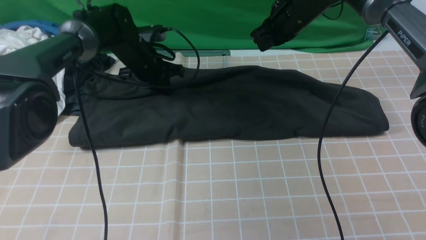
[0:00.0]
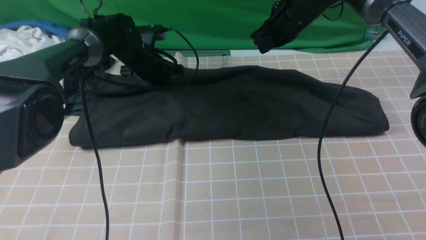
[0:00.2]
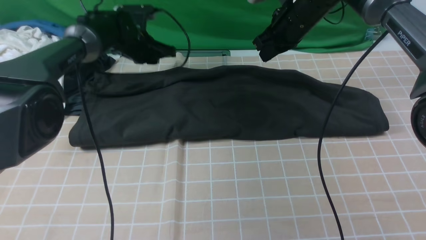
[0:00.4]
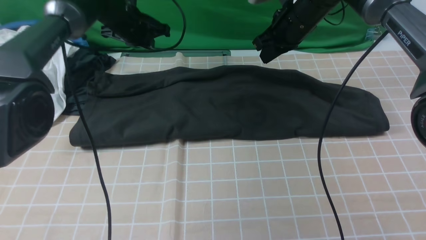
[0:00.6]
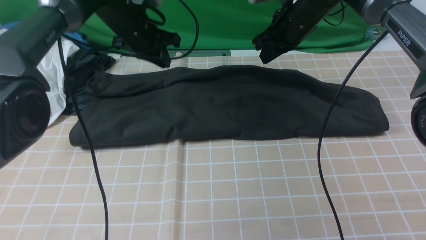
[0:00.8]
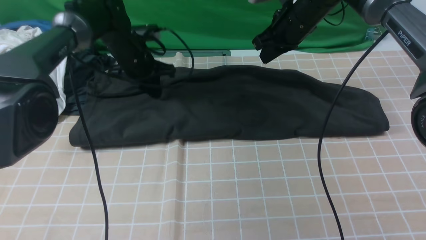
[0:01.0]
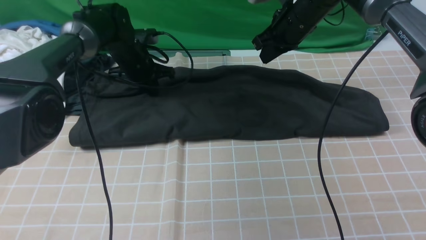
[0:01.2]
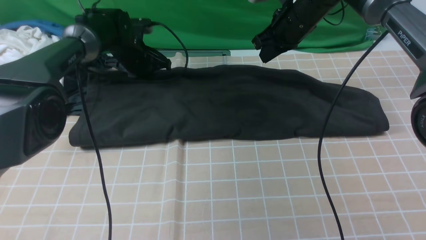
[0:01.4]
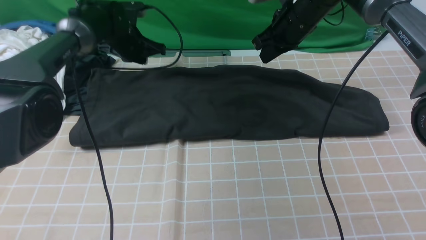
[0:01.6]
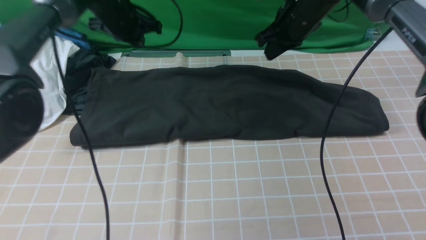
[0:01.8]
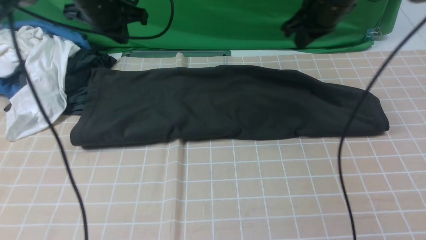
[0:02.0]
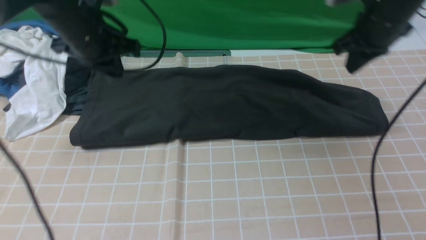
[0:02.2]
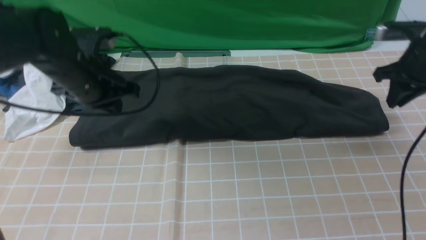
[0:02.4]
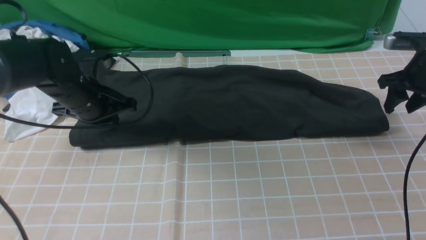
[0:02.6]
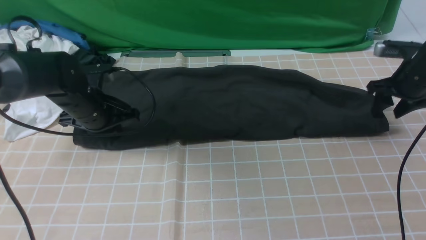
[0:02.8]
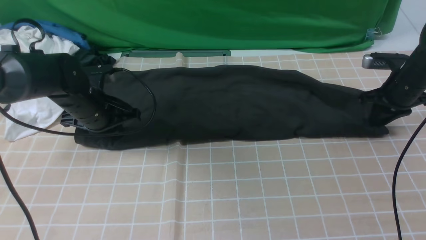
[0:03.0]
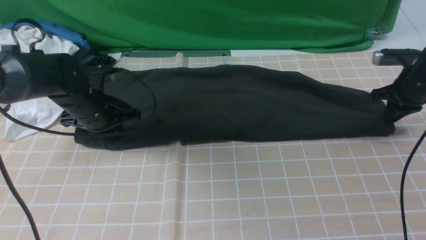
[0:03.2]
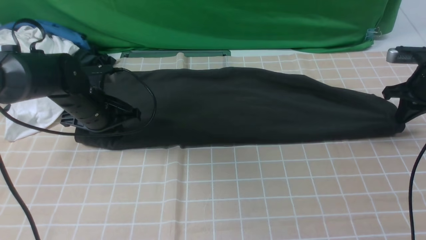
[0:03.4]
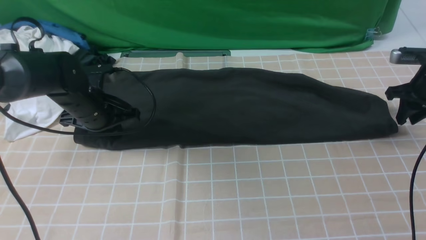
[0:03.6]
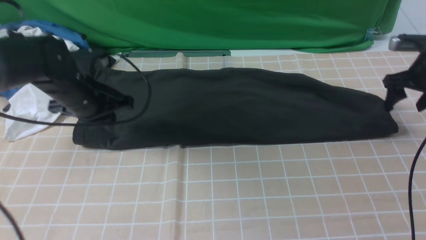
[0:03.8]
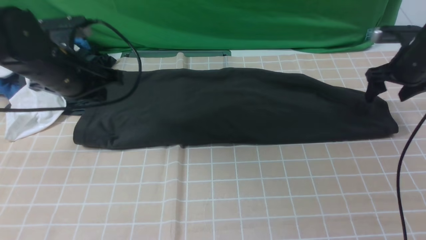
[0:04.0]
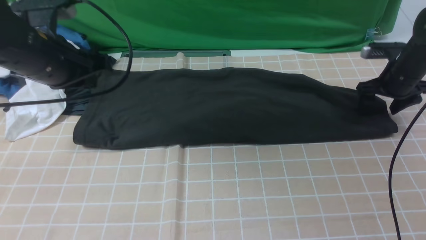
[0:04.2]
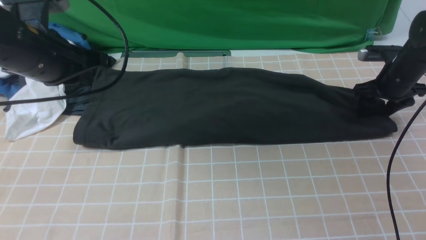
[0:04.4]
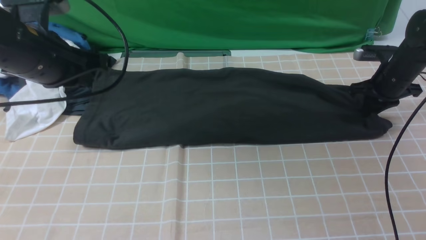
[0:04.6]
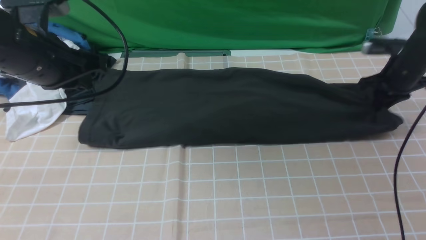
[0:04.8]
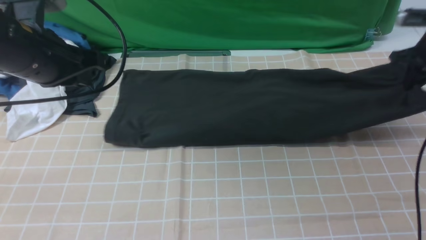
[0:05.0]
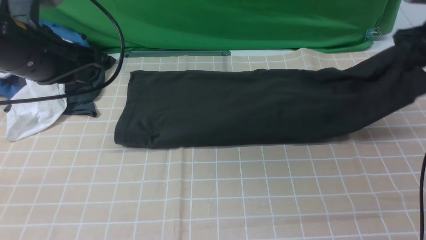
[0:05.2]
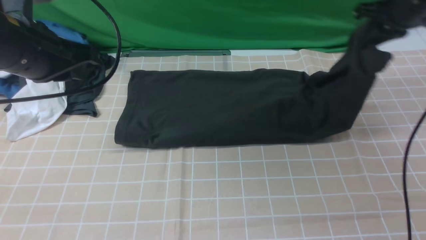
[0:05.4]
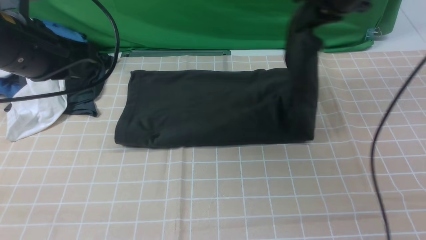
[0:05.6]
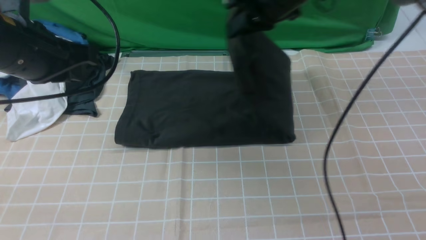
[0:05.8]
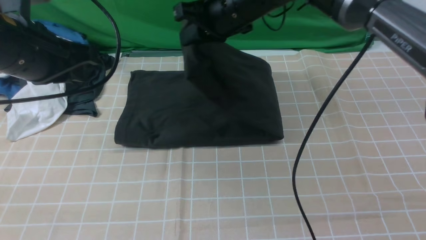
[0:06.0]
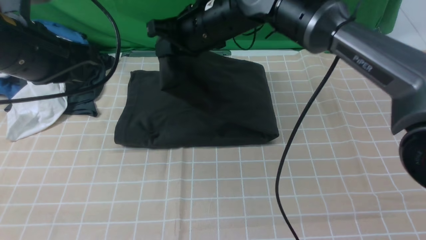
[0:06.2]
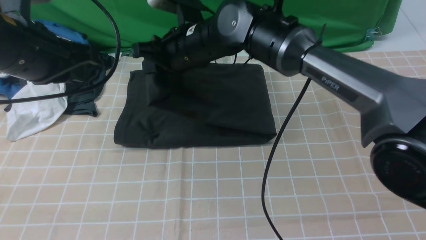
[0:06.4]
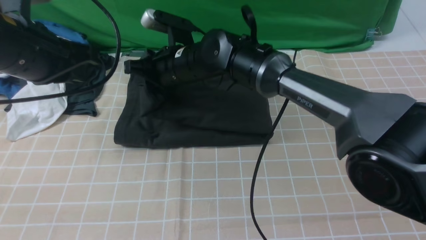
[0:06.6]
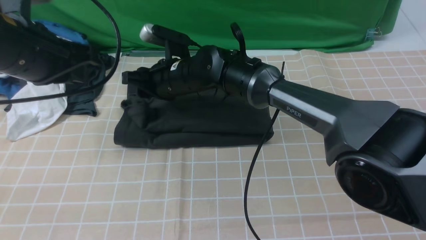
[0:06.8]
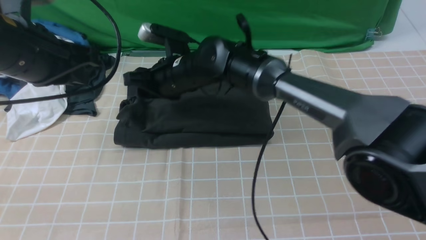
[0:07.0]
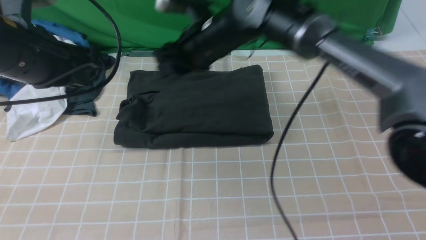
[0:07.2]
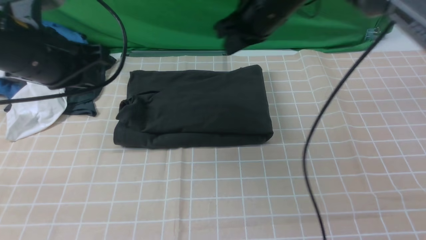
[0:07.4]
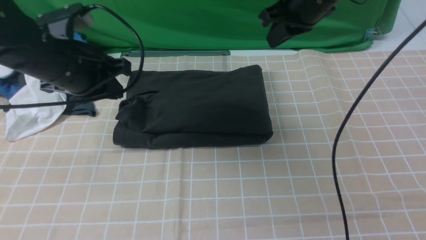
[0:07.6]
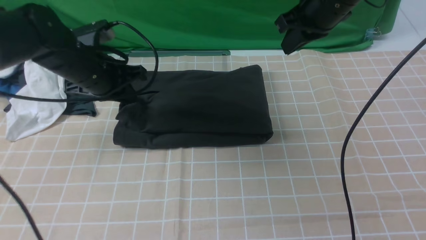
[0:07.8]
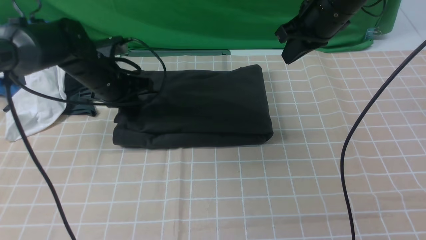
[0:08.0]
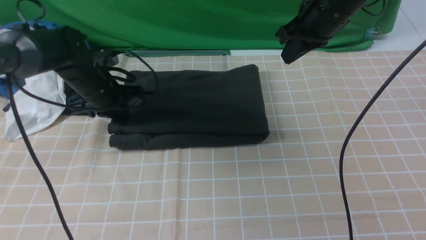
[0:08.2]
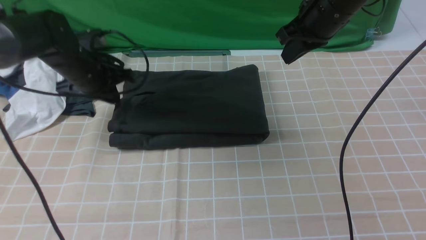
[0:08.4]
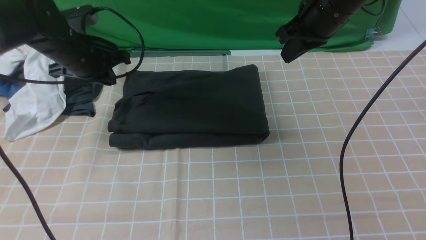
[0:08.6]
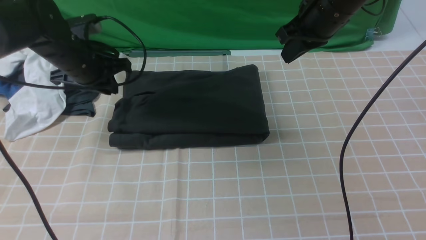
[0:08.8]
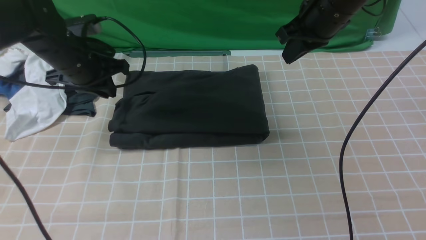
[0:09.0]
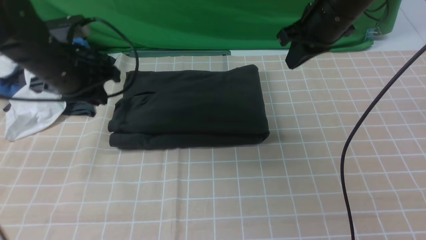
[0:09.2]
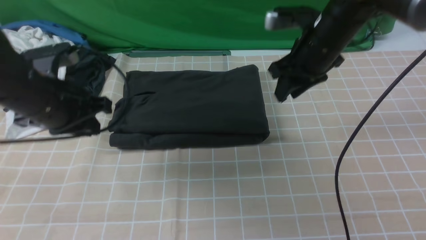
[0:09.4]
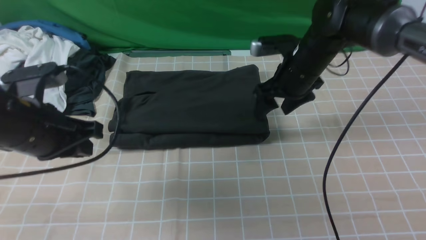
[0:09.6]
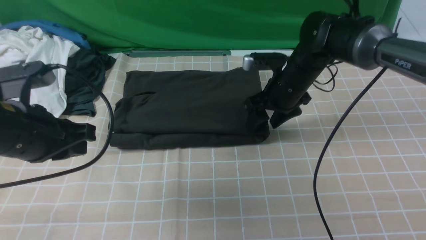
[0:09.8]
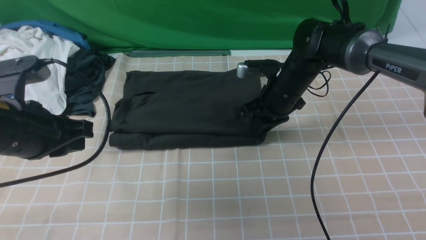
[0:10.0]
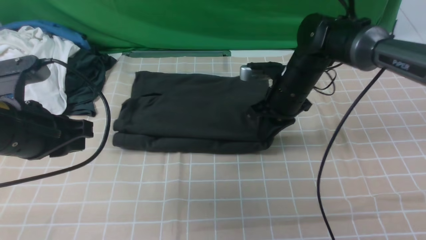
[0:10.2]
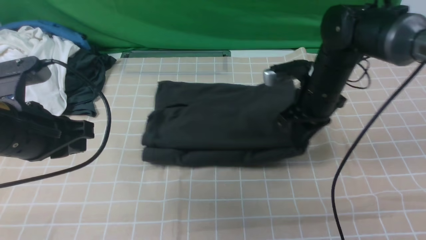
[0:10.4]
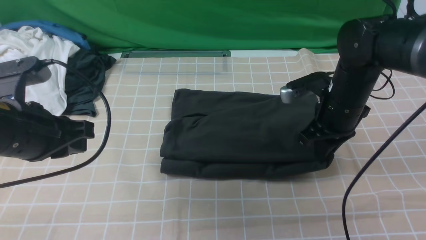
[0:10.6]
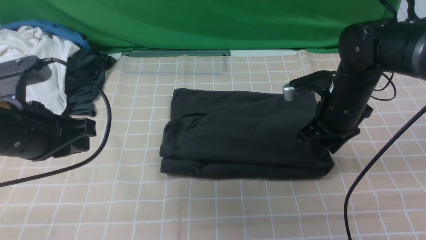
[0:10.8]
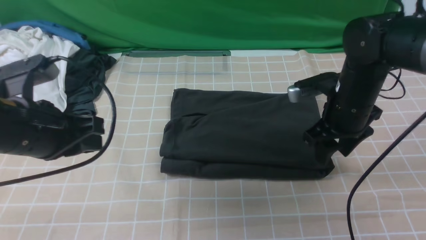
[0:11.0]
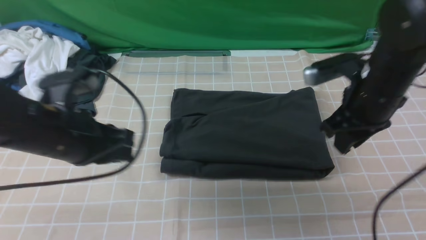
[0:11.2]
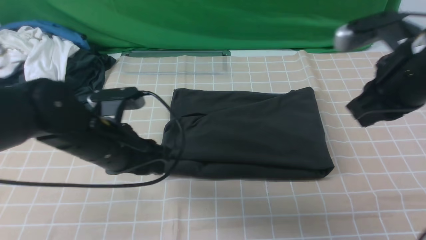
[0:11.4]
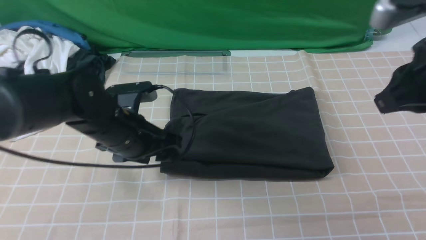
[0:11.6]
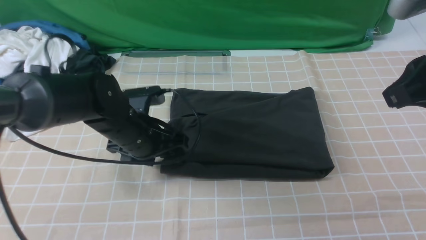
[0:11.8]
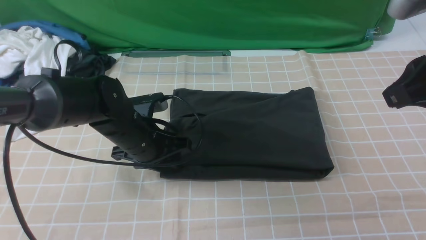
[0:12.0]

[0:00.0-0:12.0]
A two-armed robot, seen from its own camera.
Step, 0:00.0 to 0:04.6: use the right arm to clamp the right edge of the fabric.
Step, 0:04.8 to 0:07.0: use the right arm to drag the right edge of the fabric to the left and folds it over the left edge.
0:00.0 to 0:01.6: The left gripper swings up and down, roughly 5 cm each way, with 2 reversals.
0:01.6 to 0:03.0: The right gripper shifts about 25 cm to the right and downward. Meanwhile the left gripper goes some 15 cm backward.
0:03.0 to 0:04.4: The left gripper travels upward and backward by approximately 15 cm, while the right gripper opens.
0:04.4 to 0:06.0: The right gripper travels to the left and upward by roughly 35 cm, and closes its fingers.
0:06.0 to 0:07.6: The left gripper is displaced downward and forward by roughly 10 cm, while the right gripper travels to the right by roughly 10 cm, and opens, then closes once more.
0:07.6 to 0:09.0: The left gripper reaches about 10 cm downward, then returns.
0:09.0 to 0:10.4: The right gripper moves downward, some 10 cm, and opens, then closes again, while the left gripper travels backward by approximately 15 cm.
0:10.4 to 0:12.0: The right gripper travels upward and backward by approximately 25 cm, and opens, then closes once more, while the left gripper goes roughly 20 cm downward, to the right and forward, and opens up.

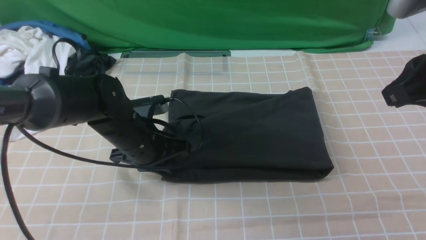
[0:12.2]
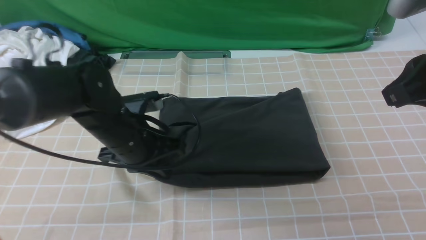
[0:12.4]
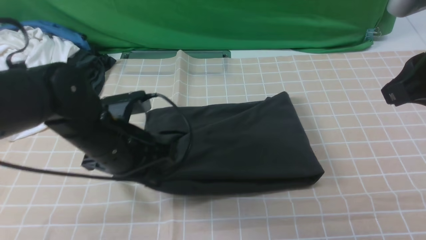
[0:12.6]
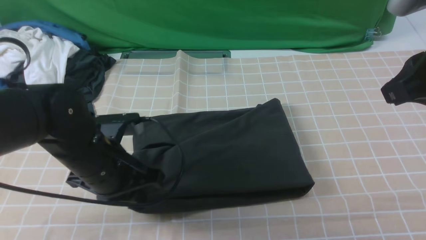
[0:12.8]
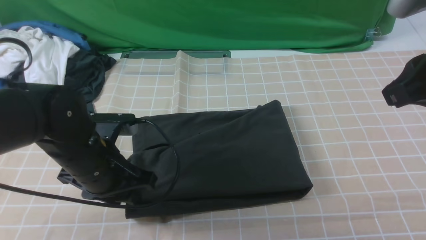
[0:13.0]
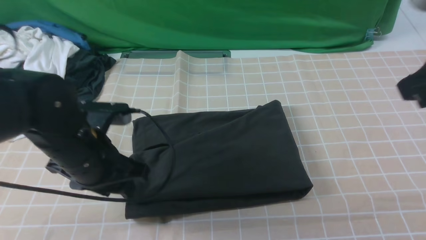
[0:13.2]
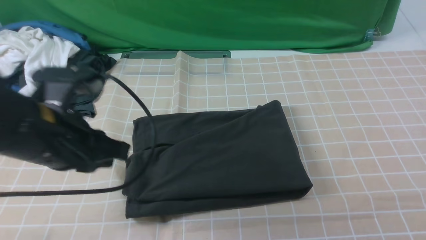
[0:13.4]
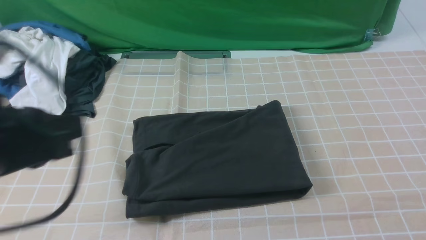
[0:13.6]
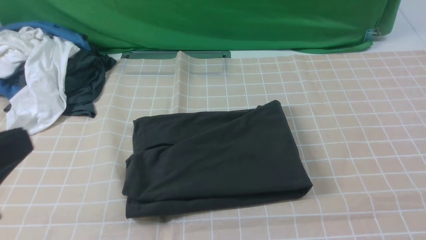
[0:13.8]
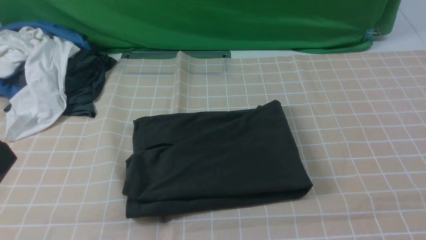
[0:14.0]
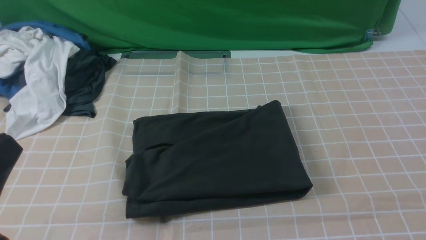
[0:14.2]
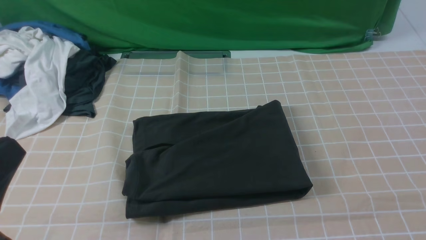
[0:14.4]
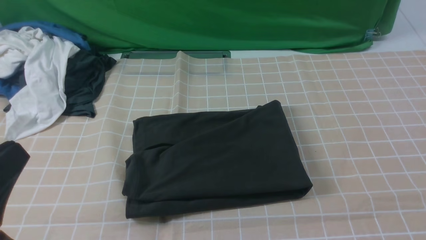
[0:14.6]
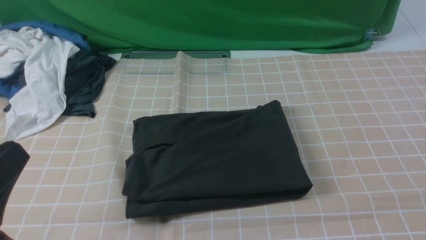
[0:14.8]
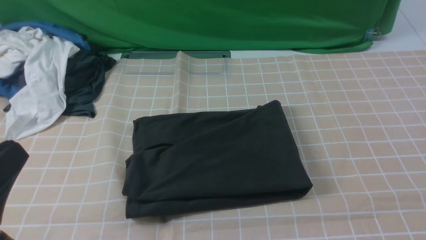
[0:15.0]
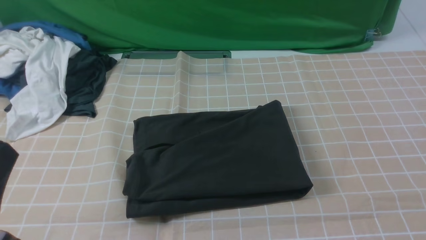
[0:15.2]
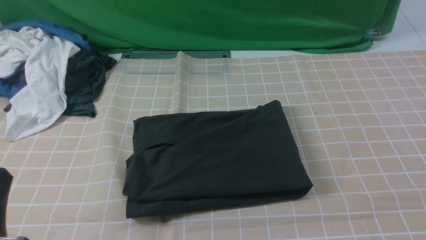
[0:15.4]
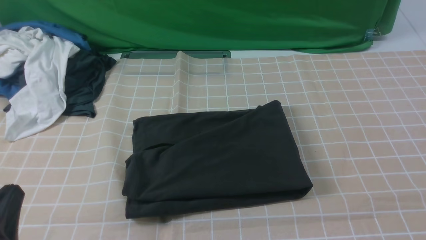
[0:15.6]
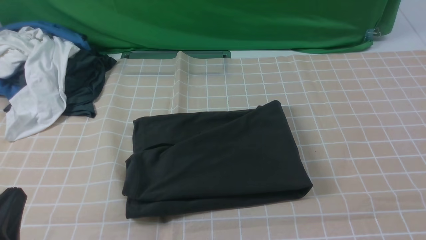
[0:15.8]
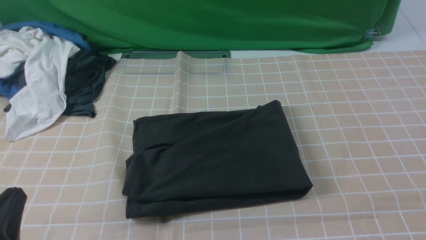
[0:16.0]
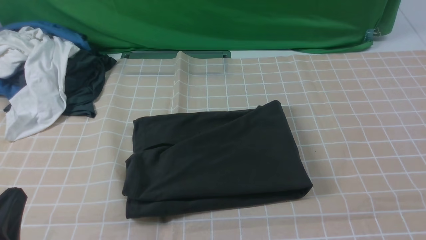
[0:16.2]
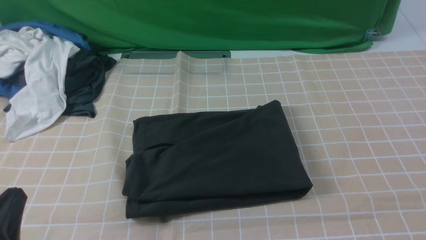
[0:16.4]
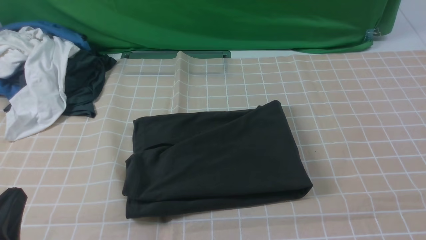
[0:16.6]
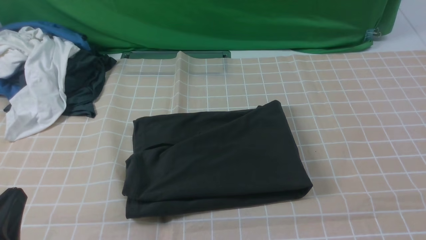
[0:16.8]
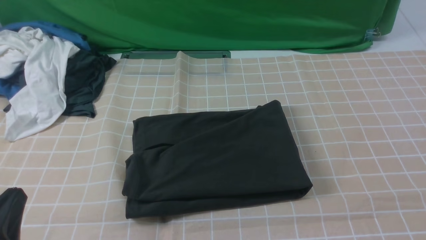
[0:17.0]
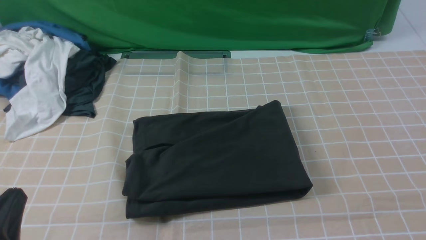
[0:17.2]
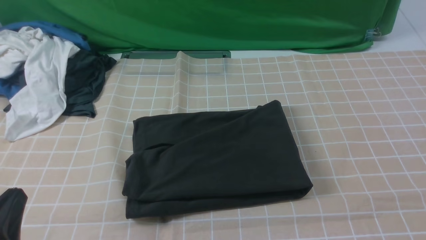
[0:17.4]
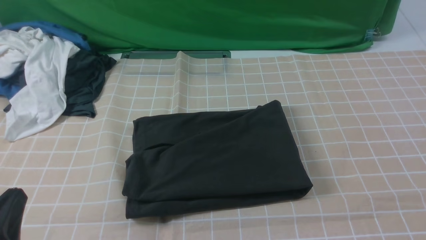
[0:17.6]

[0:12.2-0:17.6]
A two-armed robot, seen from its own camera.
0:12.2 to 0:13.6: The left gripper shifts about 25 cm backward, upward and to the left. The right gripper travels backward by about 20 cm.
0:13.6 to 0:15.0: The right gripper is displaced downward and backward by approximately 10 cm, while the left gripper is displaced backward and downward by roughly 10 cm.
0:15.0 to 0:16.2: The left gripper heads downward, covering about 10 cm.
